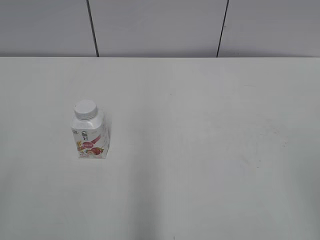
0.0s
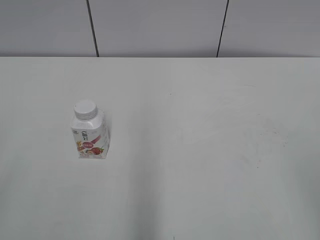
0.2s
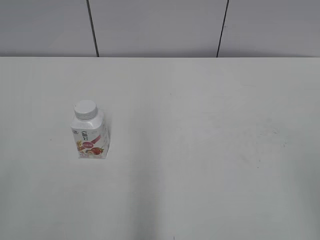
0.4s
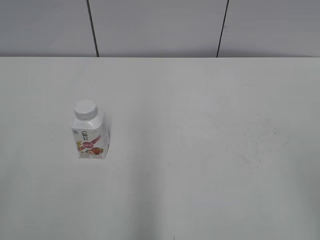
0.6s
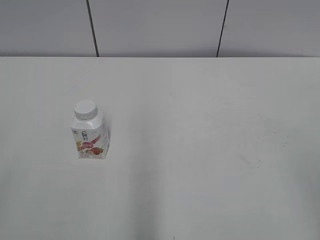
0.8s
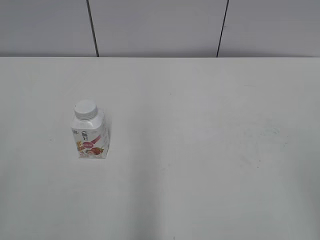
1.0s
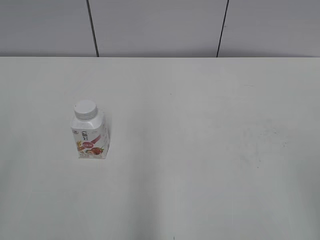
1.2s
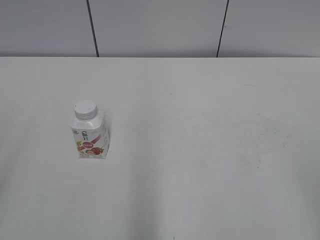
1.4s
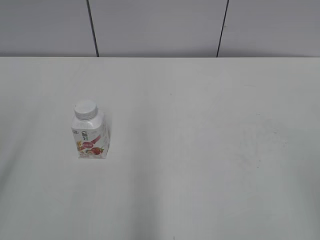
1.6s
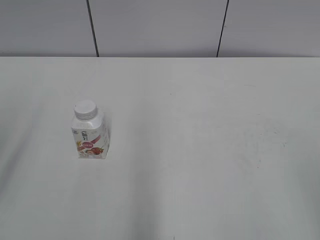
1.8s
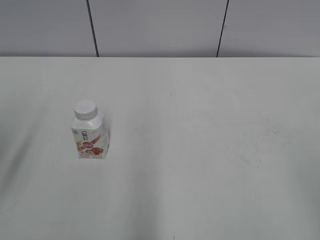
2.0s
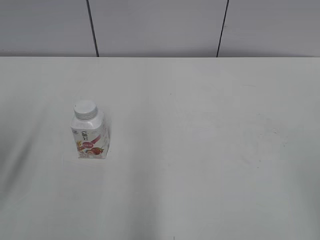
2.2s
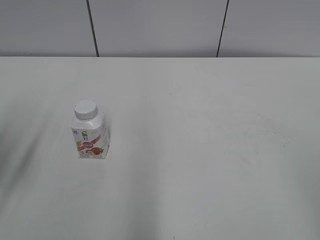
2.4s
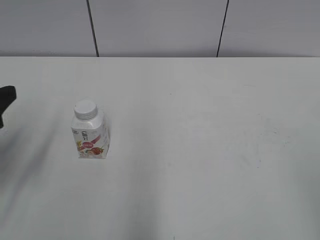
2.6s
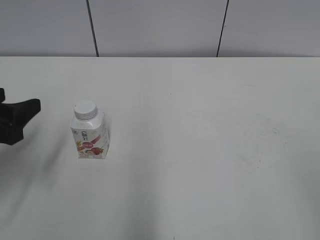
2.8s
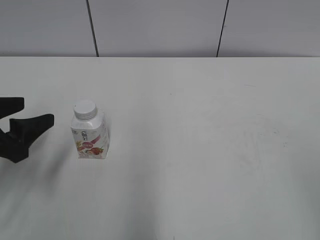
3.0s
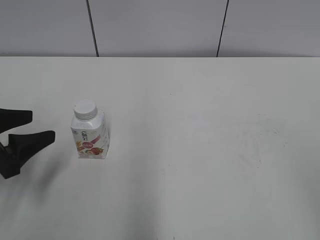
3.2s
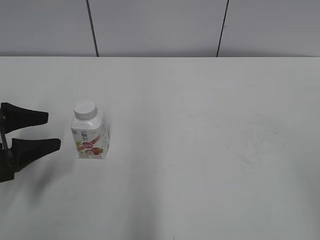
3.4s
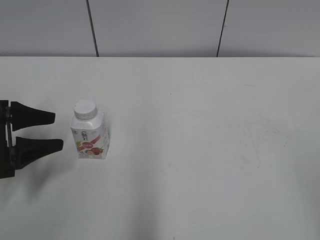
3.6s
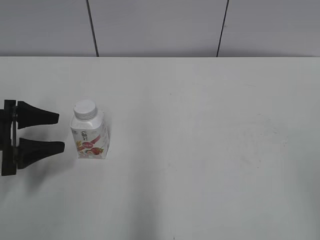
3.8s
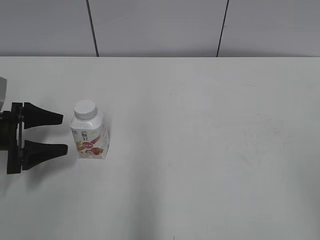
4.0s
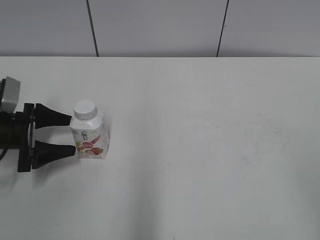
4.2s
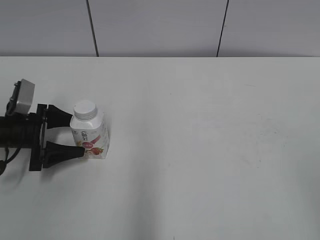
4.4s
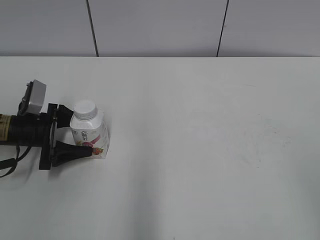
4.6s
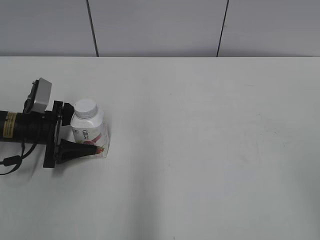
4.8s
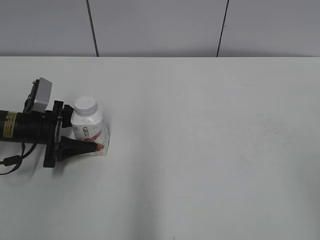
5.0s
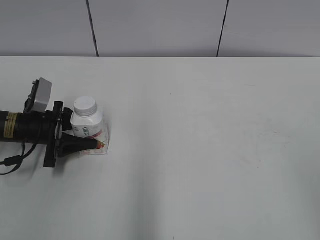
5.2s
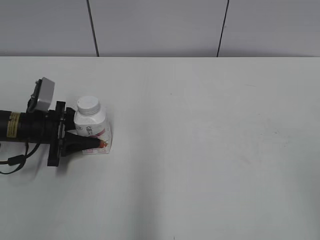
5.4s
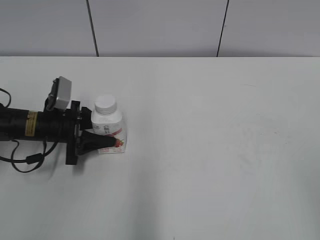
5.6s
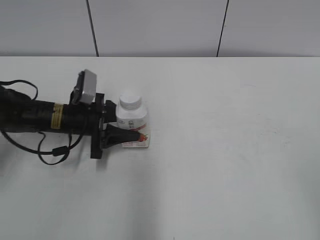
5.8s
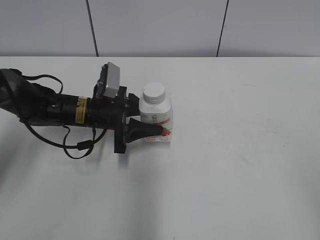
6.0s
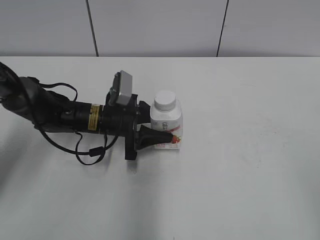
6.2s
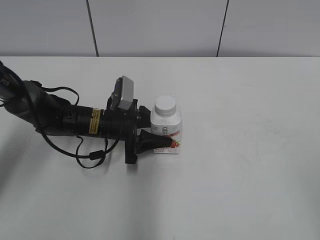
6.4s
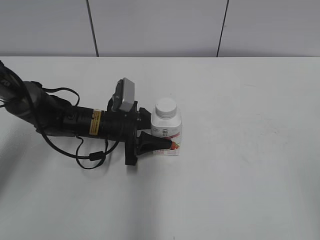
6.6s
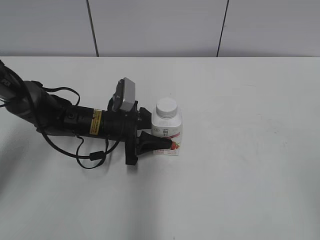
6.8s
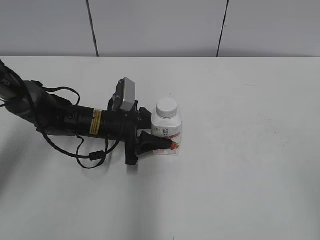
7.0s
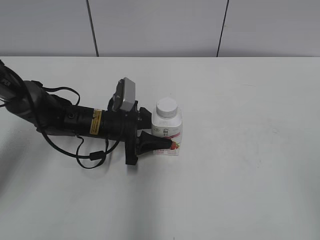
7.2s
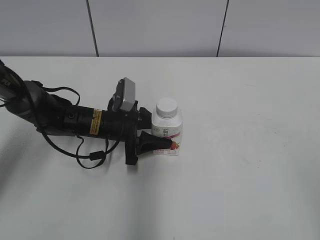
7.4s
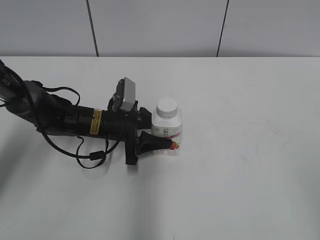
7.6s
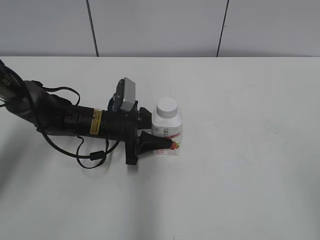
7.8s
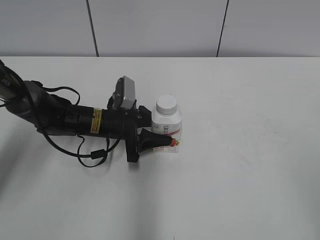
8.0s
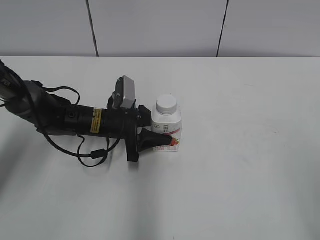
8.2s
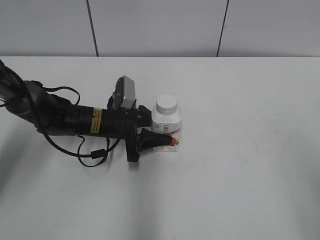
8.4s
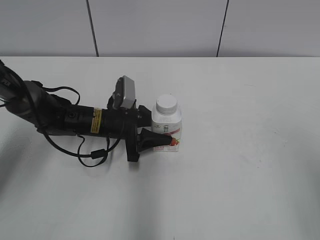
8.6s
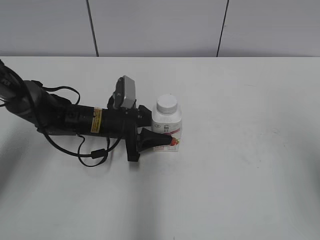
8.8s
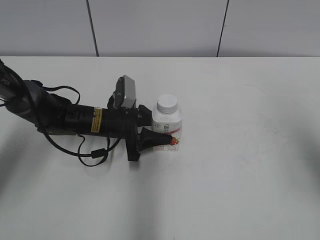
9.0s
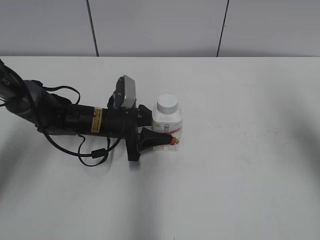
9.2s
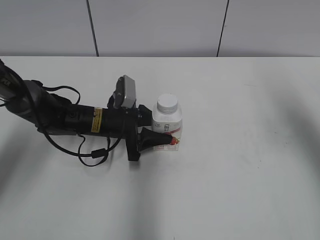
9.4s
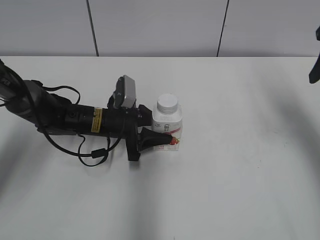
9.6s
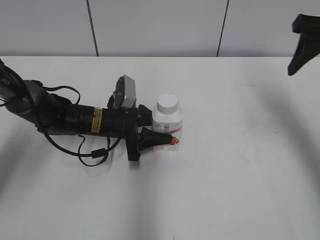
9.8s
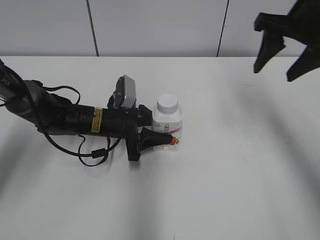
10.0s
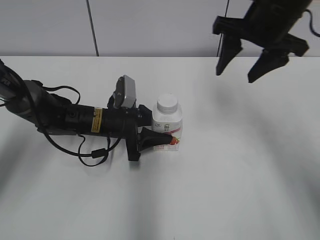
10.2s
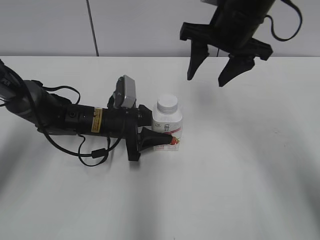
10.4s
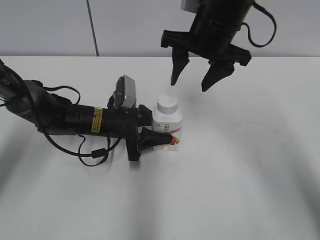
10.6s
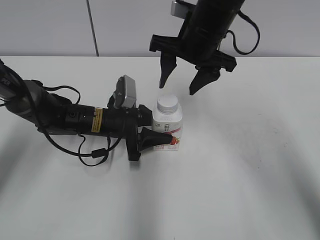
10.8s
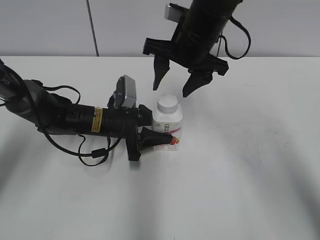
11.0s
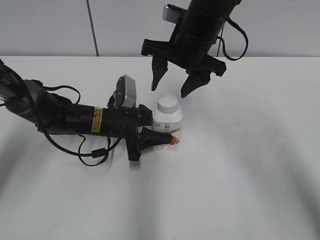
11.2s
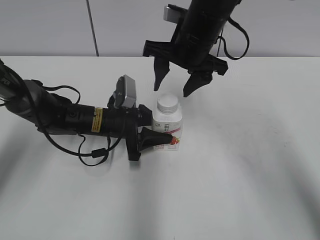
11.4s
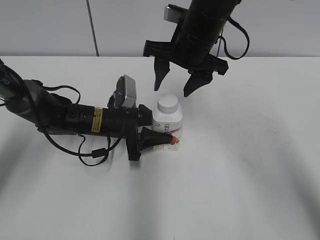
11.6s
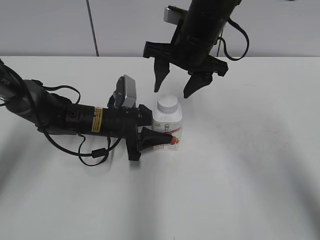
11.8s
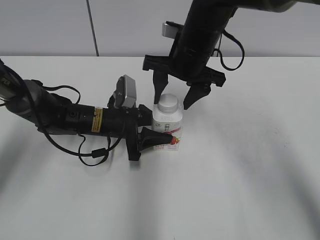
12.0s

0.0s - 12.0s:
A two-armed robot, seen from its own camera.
Step, 0.0s - 5.0s: Grab the Yili Changqing with the left hand.
Step, 5.2s - 7.6s: Move the Yili Changqing from left to right.
1.6s - 3.0s: The left gripper heads downward and forward, covering approximately 20 cm.
3.0s - 4.4s: The left gripper goes roughly 15 cm forward and downward, and opens up.
4.4s - 6.0s: The left gripper goes roughly 15 cm to the right, and closes up.
6.0s - 7.6s: The grippers stay close to where they were, moving slightly.
7.6s - 9.0s: The right gripper goes approximately 20 cm forward.
9.0s - 10.4s: The right gripper goes approximately 25 cm forward and to the left.
10.4s - 12.0s: The right gripper travels to the left and downward by some 10 cm.

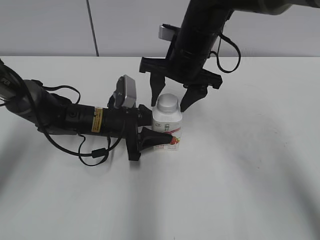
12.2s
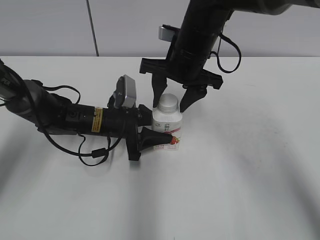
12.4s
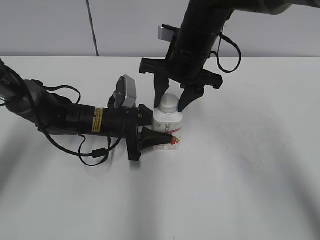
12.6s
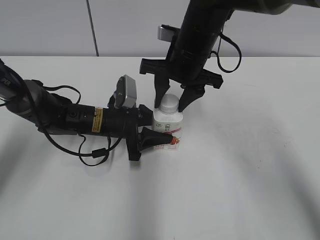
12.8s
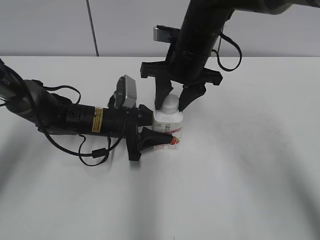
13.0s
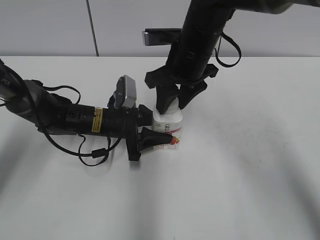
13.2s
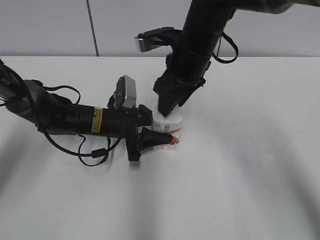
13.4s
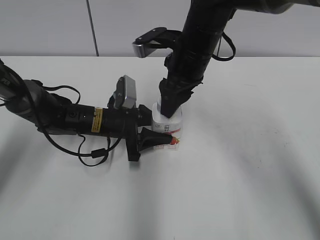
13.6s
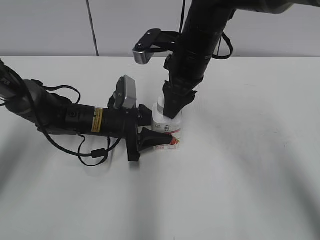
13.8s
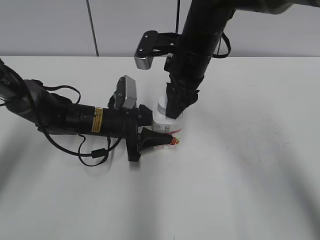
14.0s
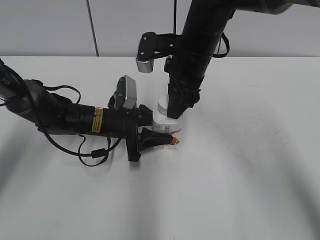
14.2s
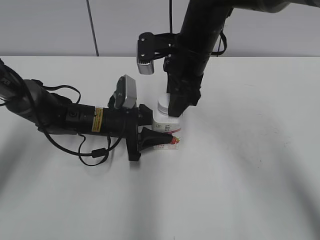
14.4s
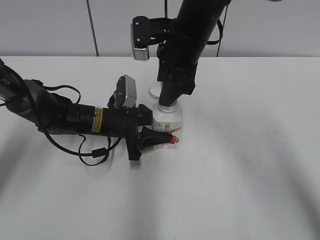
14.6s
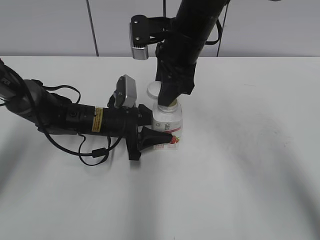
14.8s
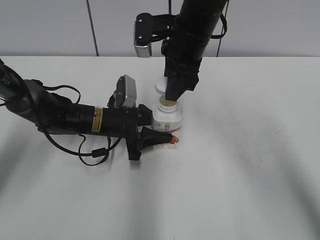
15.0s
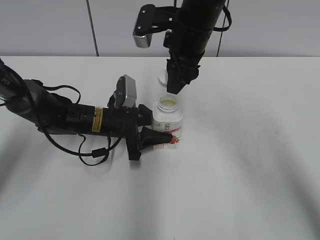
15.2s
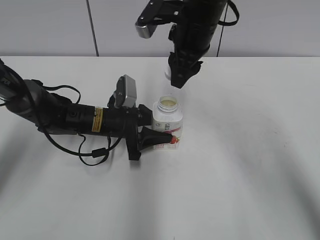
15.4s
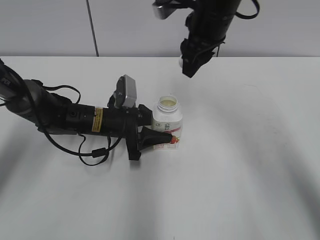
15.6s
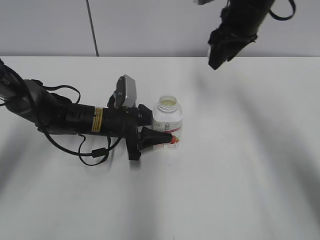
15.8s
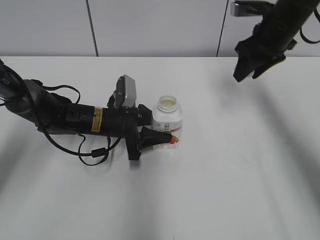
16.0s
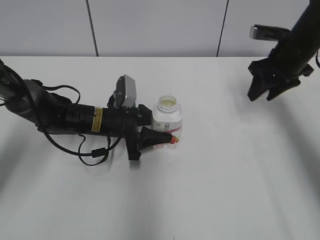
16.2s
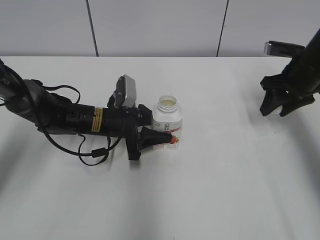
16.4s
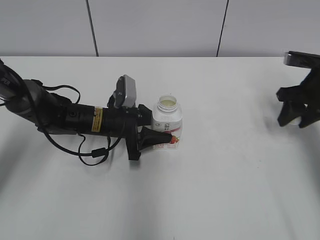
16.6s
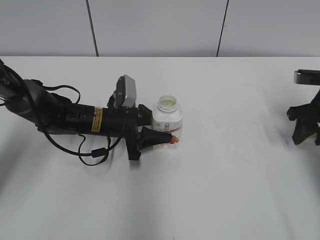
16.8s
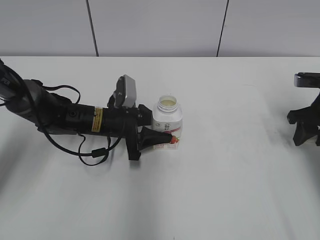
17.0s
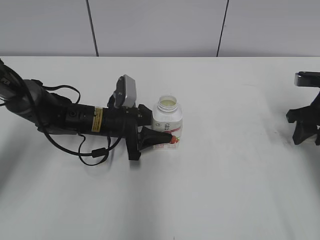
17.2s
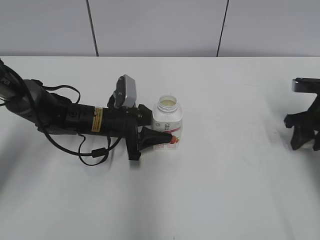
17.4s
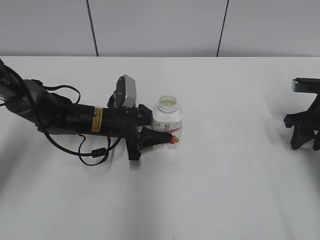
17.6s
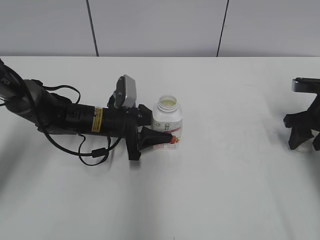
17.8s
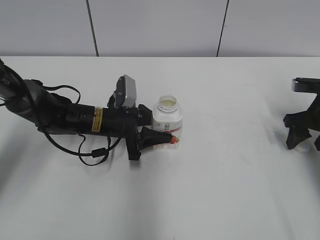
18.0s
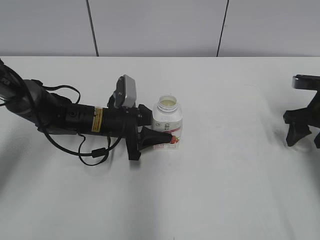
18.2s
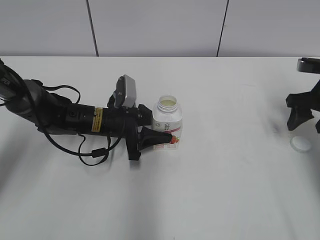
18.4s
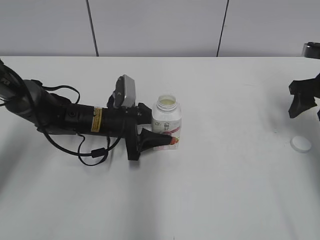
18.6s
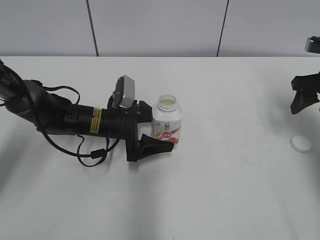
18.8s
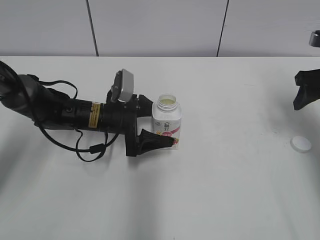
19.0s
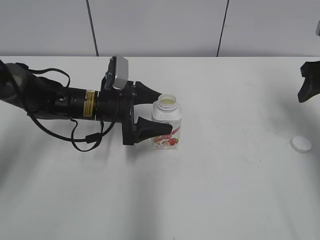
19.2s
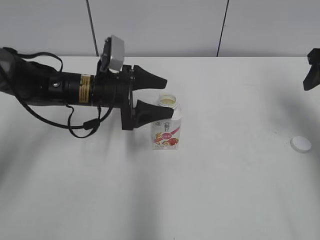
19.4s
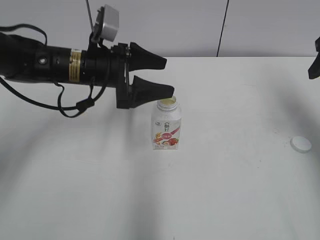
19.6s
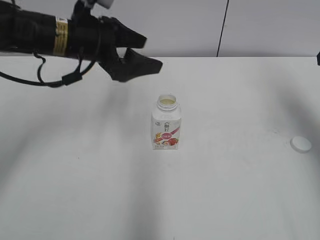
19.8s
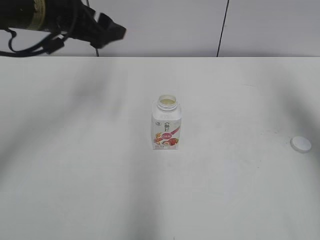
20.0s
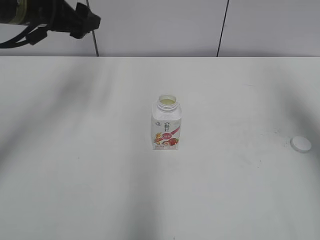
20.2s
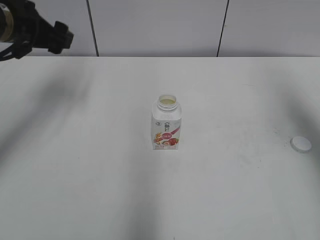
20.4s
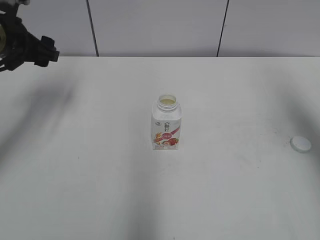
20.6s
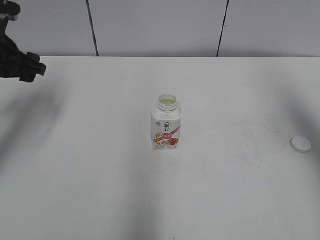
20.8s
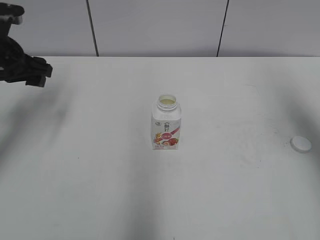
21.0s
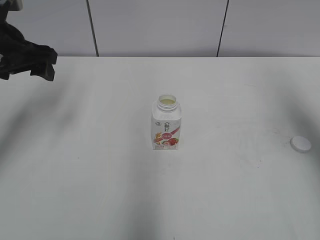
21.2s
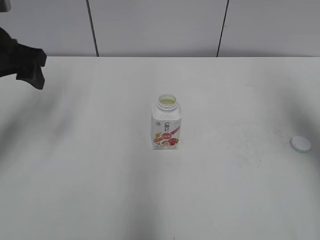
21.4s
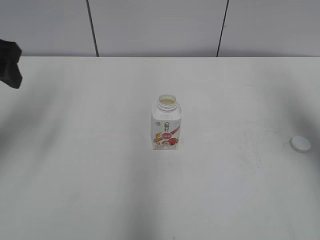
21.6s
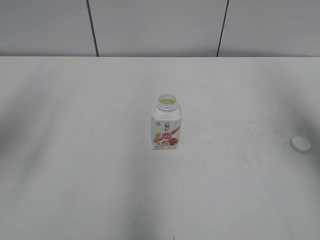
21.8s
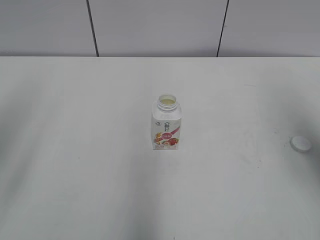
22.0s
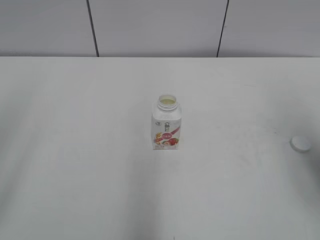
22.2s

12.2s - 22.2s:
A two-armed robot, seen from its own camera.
Step, 14.8s - 17.8s: Place the bottle cap on the right.
12.2s - 13.6s: The right gripper closes its fingers.
15.0s - 16.4s: The right gripper travels to the right by about 20 cm.
16.4s - 18.0s: The right gripper moves backward, downward and to the right, about 10 cm, and opens.
18.0s - 19.4s: The right gripper moves upward, about 15 cm. Meanwhile the left gripper travels upward by some 5 cm, and opens its fingers.
19.4s - 20.8s: The left gripper travels to the left and upward by roughly 20 cm. The right gripper goes roughly 10 cm upward and backward.
20.8s - 22.2s: The left gripper shifts about 25 cm backward and upward. Meanwhile the right gripper moves backward, some 10 cm.
